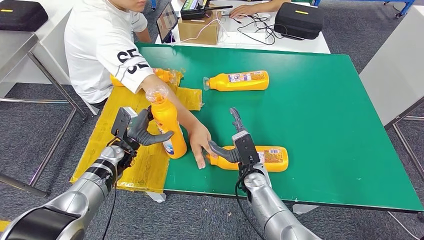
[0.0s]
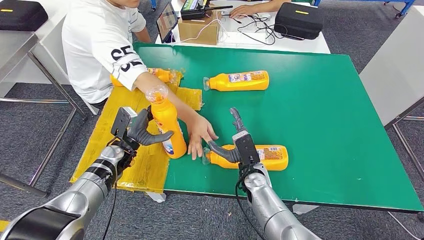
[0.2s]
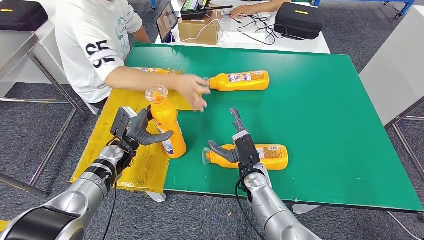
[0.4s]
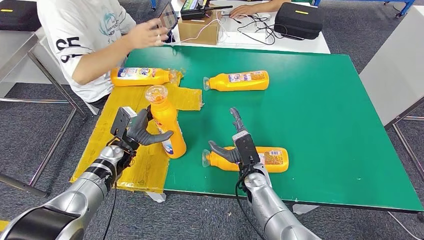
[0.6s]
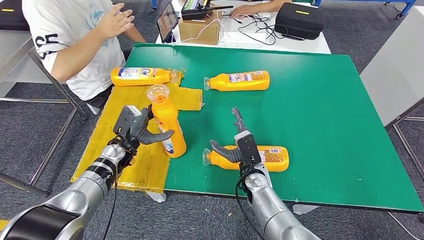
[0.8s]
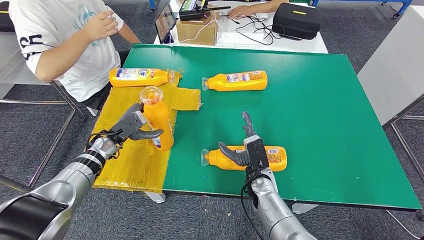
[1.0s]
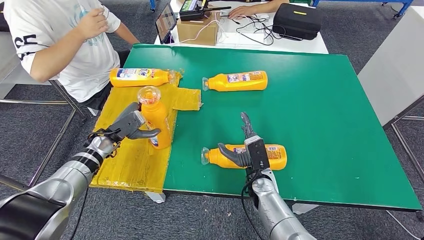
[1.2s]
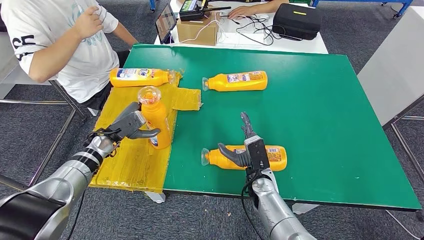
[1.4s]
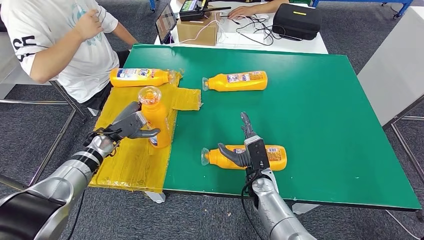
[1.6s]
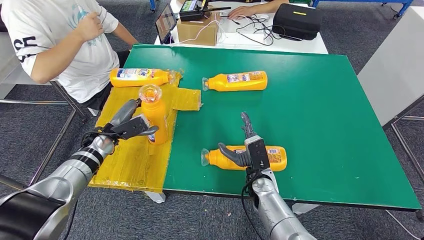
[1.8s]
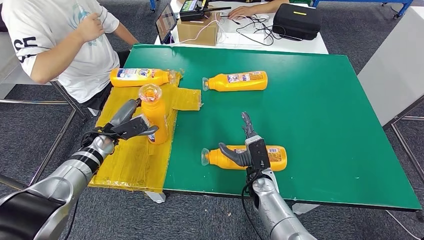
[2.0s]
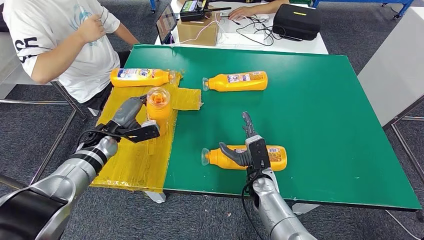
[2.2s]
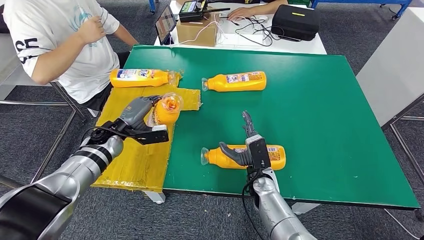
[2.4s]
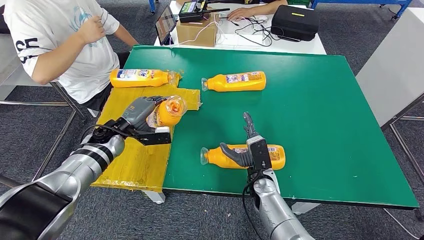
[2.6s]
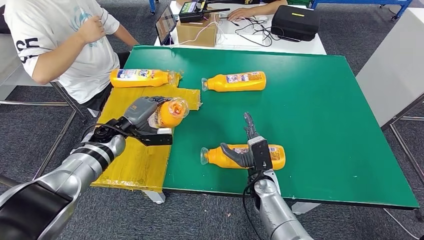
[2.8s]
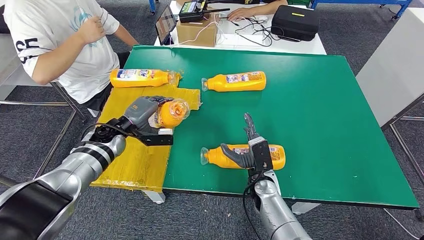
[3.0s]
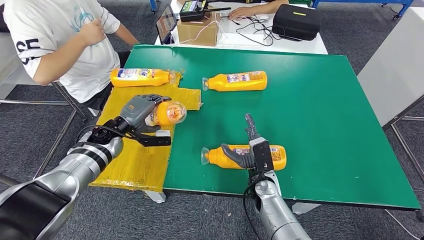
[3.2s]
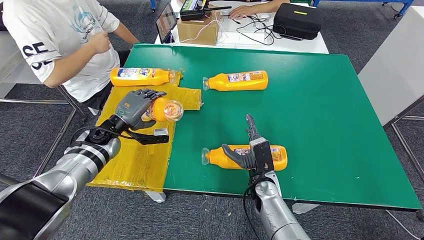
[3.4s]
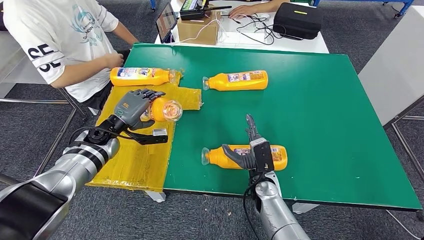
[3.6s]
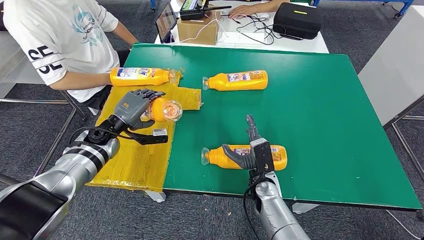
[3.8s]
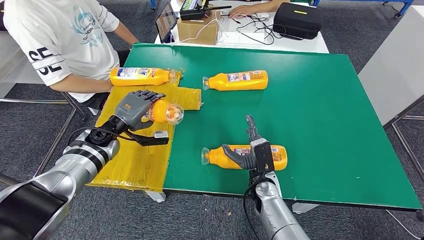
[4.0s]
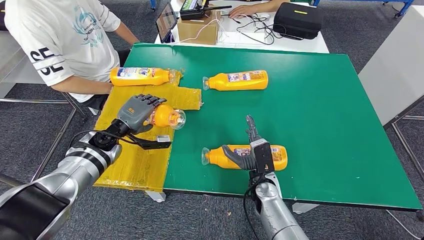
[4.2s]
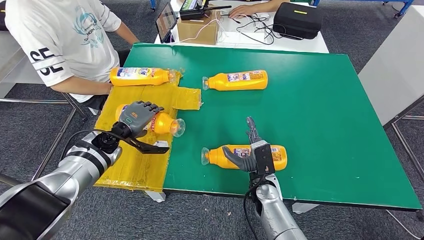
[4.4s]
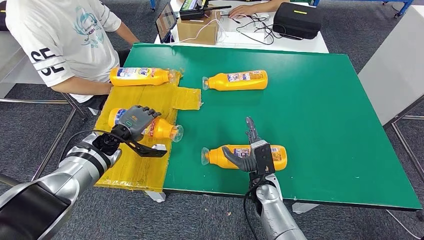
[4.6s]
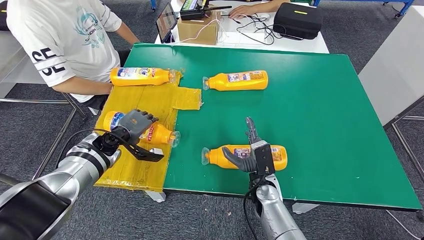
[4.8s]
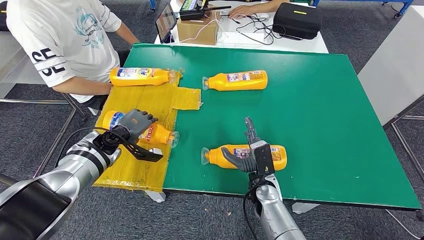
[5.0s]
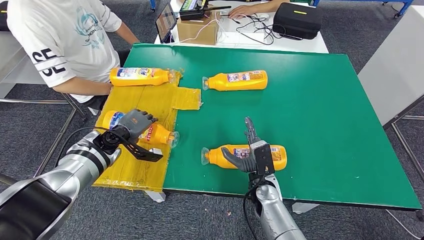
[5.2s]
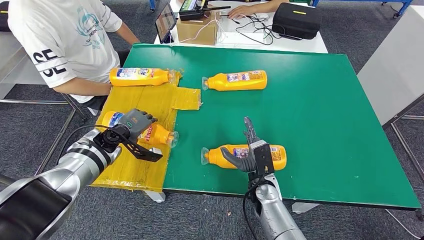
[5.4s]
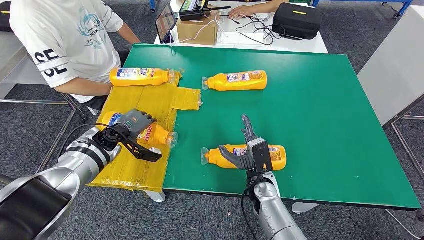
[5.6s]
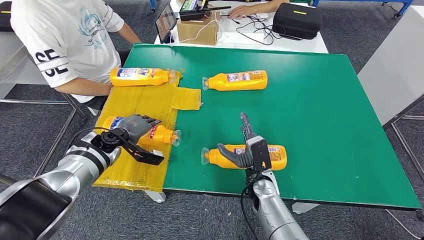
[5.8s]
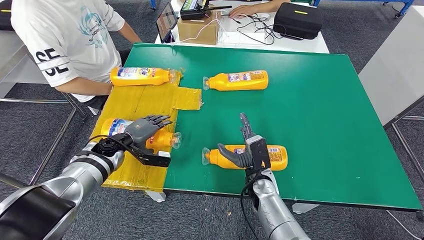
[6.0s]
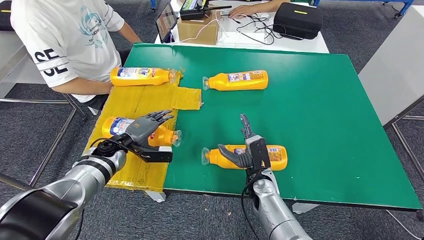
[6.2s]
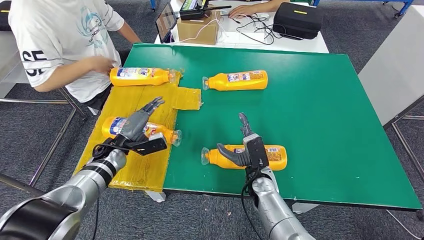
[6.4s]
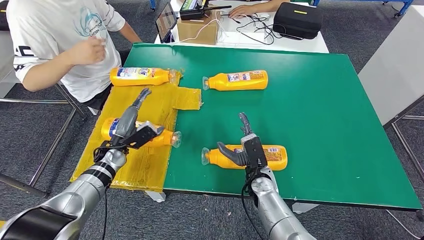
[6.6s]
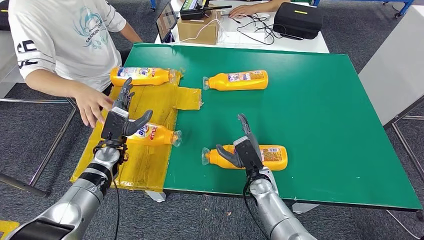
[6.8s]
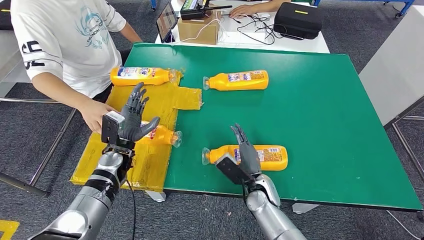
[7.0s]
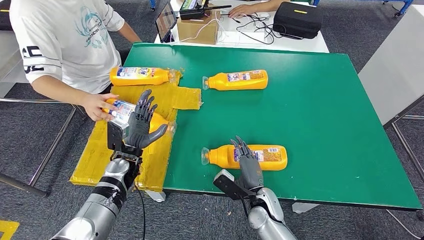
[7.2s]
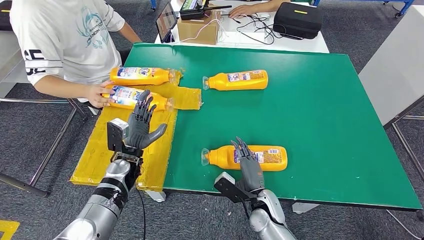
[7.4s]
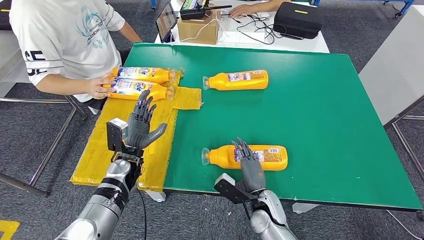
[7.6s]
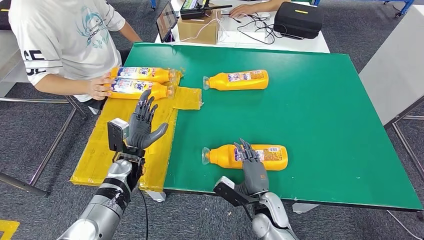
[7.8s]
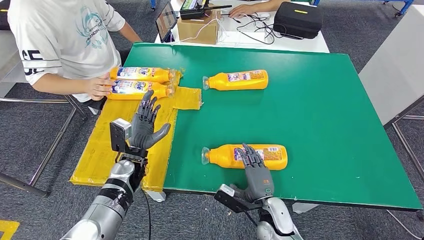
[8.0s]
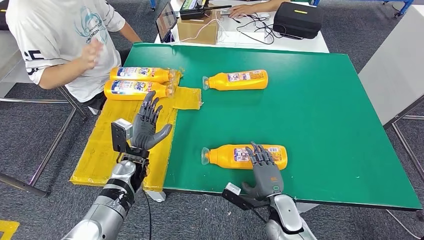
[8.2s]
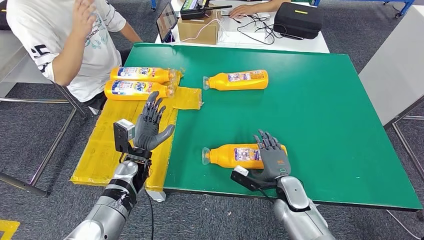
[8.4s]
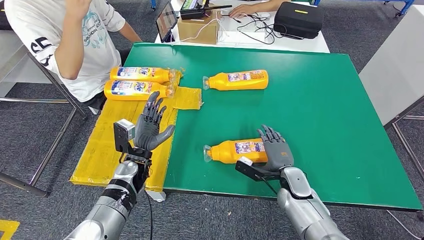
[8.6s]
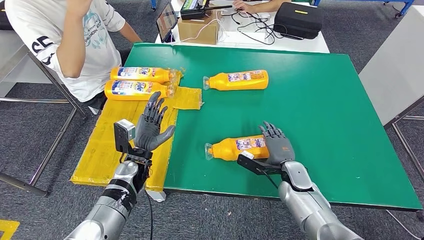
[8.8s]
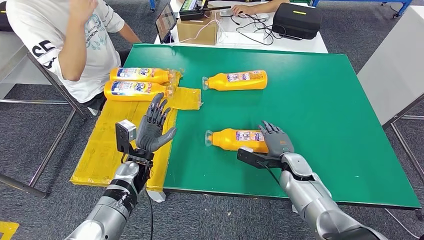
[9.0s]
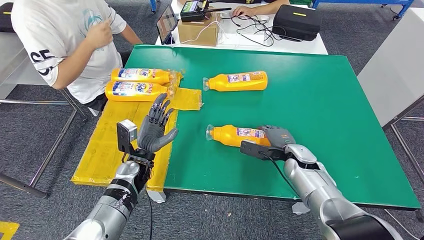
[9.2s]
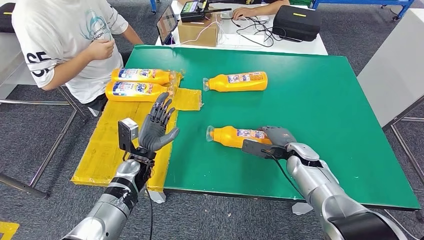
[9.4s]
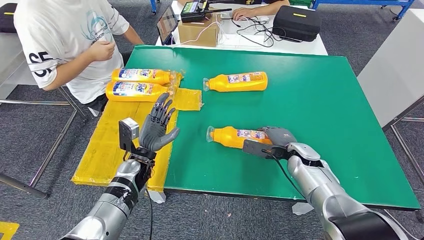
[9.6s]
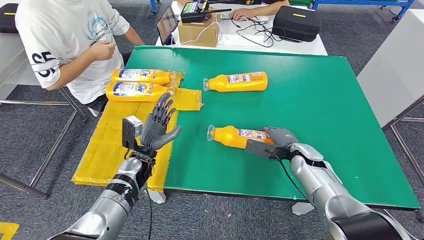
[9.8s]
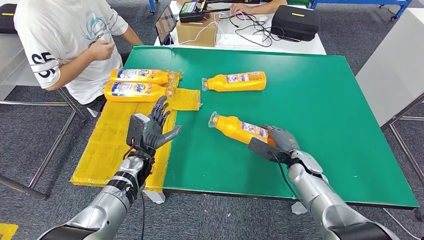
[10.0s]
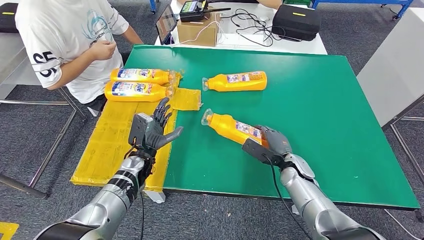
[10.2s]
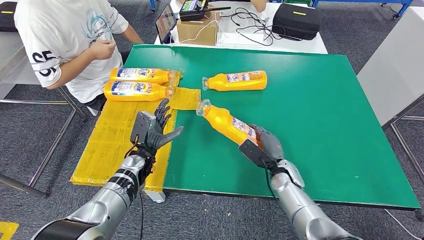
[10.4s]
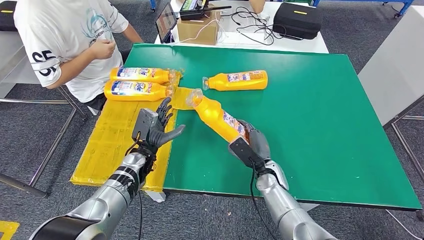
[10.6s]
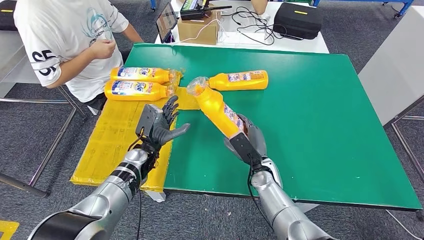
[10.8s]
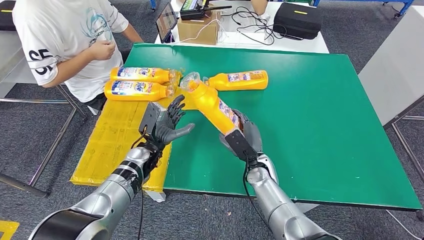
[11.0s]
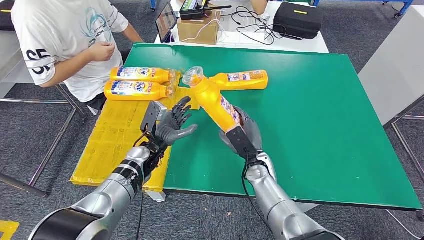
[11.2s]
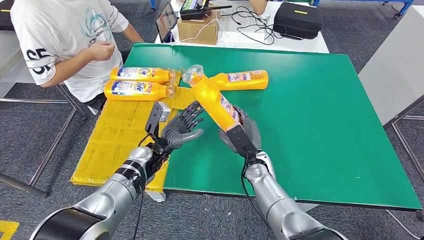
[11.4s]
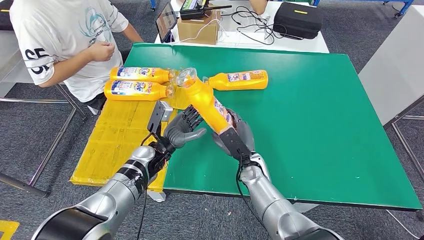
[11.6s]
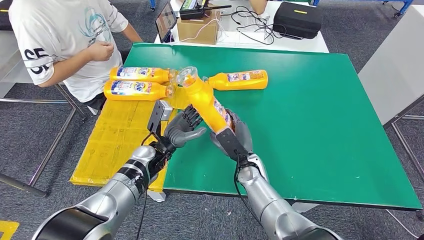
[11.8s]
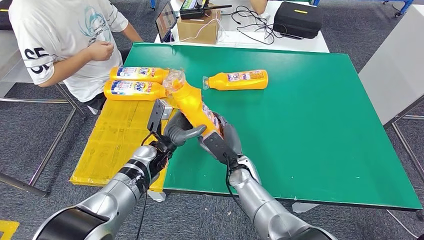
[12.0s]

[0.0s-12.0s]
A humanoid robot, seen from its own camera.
Step, 0.0s to 7.2s: Flip the fast-moving consumer goods bottle to the front side.
Step, 7.4s to 11.0s: Pick up the fast-moving consumer goods bottle from the table.
1.6s to 3.0s: The left hand moves about 5 cm.
6.0s to 7.6s: The right hand travels backward by roughly 5 cm. The left hand goes roughly 10 cm to the right and backward.

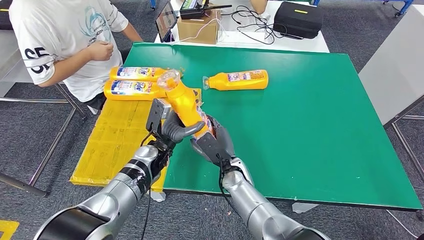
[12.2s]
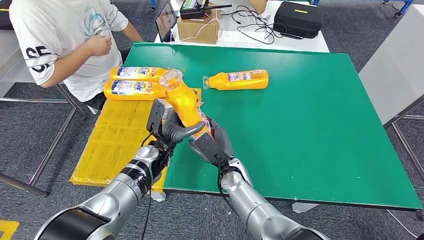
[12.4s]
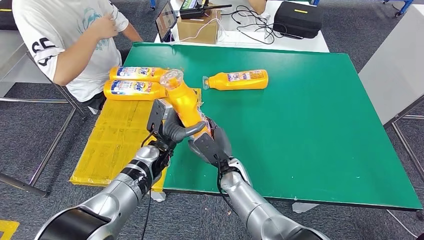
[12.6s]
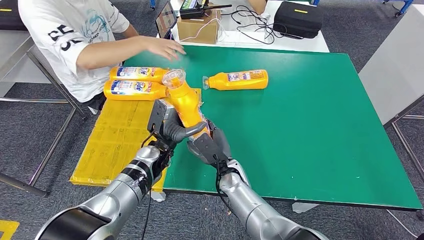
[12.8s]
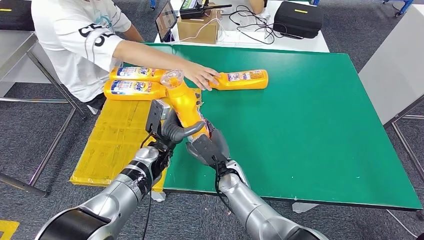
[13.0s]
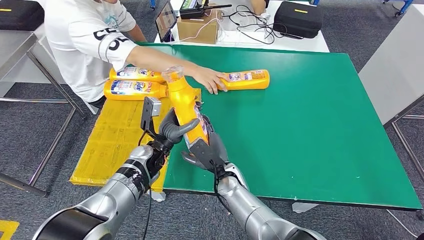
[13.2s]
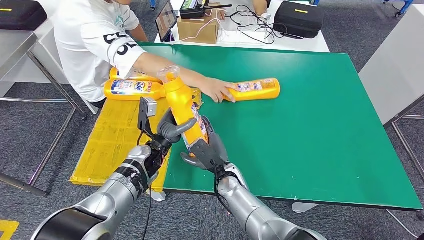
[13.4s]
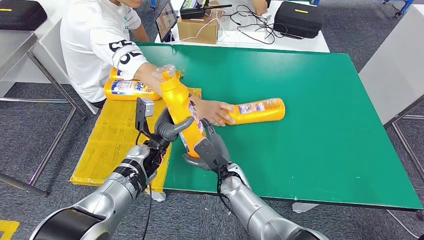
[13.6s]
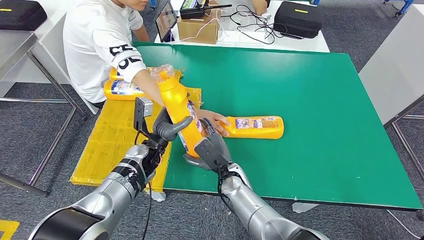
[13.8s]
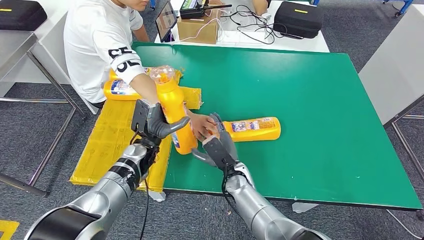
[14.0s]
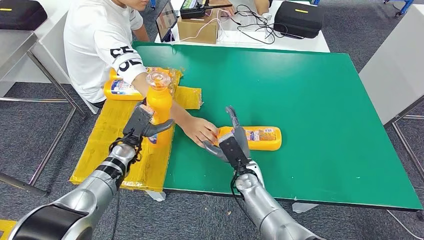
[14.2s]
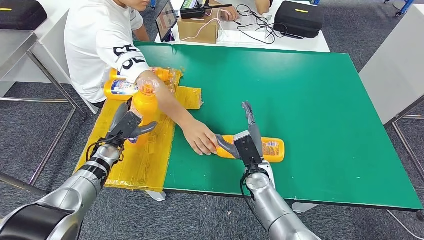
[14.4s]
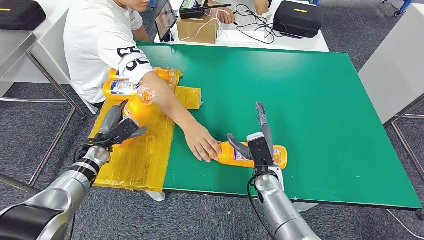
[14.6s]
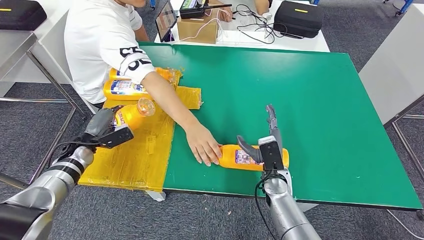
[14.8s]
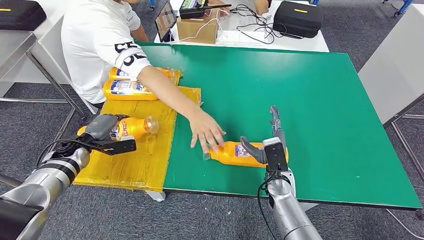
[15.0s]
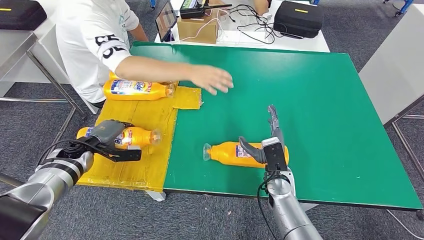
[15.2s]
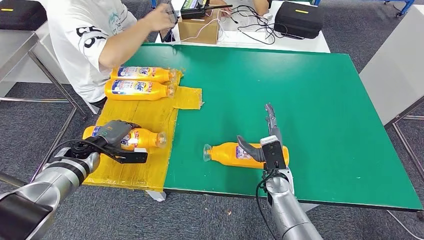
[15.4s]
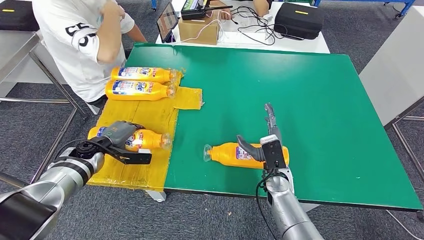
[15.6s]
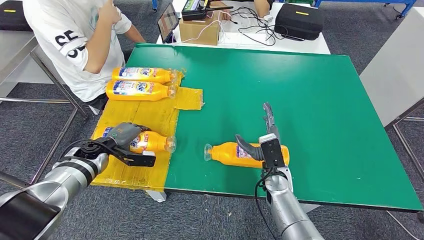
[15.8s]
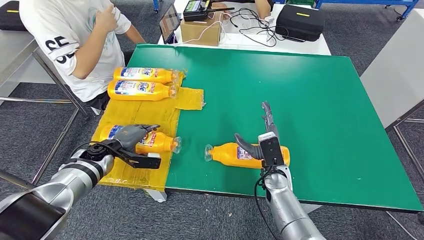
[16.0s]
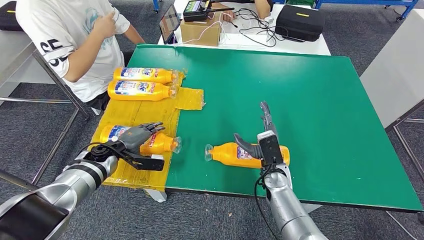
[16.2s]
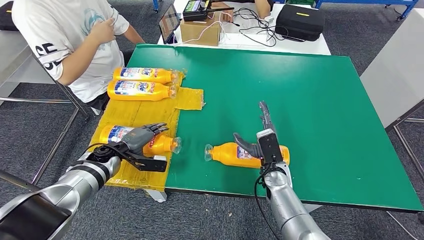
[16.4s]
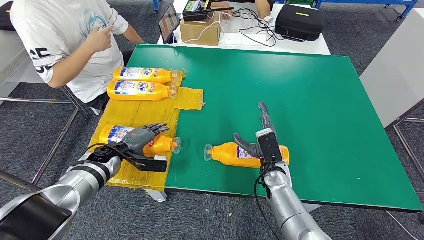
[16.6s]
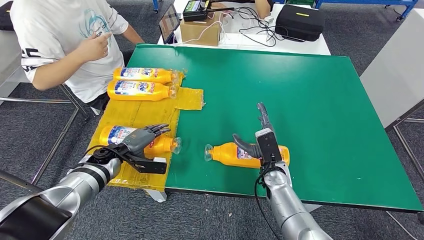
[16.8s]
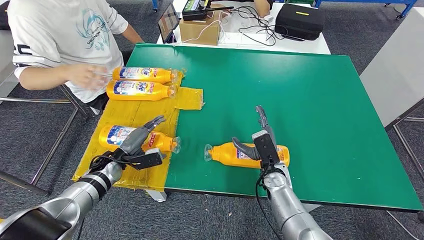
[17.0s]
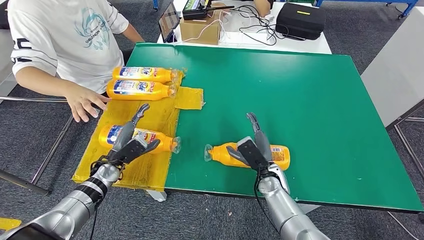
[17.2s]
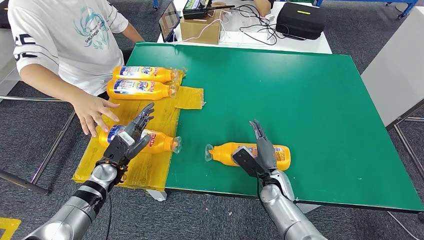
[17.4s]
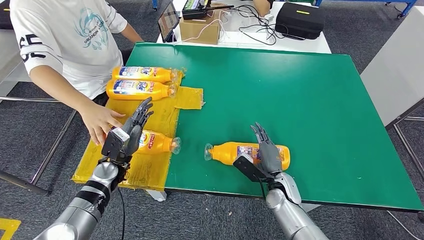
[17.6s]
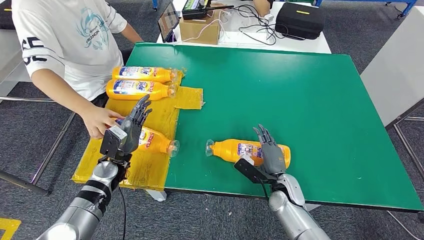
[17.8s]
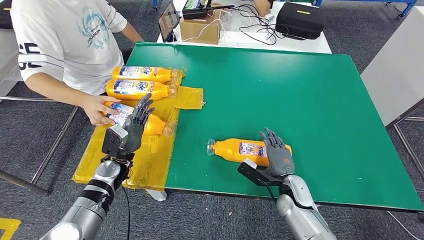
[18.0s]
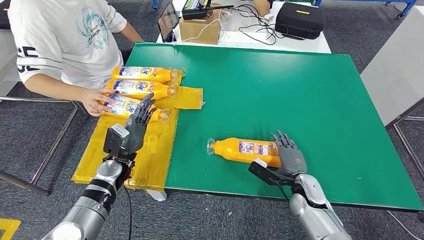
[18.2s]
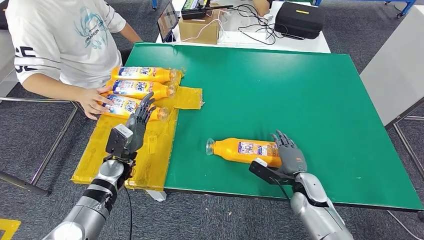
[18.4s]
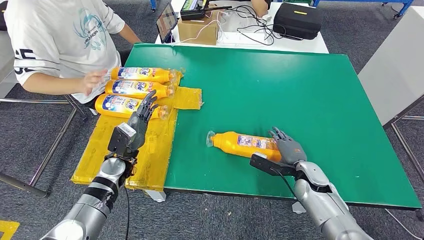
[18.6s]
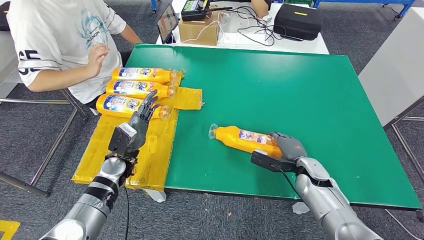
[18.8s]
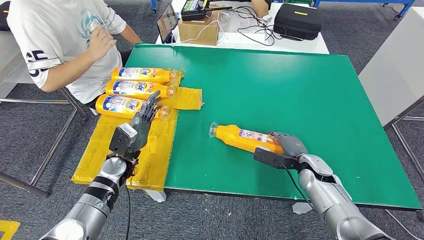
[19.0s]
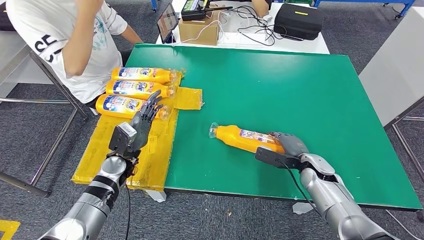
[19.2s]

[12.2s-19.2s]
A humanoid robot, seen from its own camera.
Step, 12.2s to 17.4s: Flip the fast-moving consumer goods bottle to the front side.
